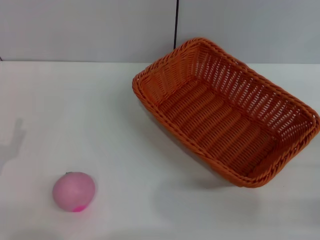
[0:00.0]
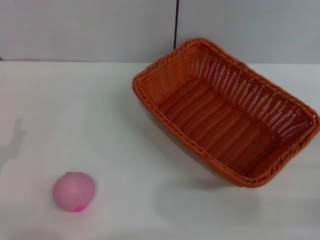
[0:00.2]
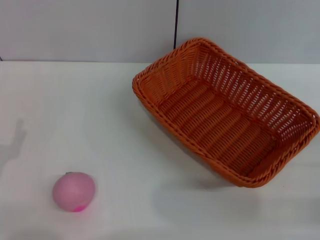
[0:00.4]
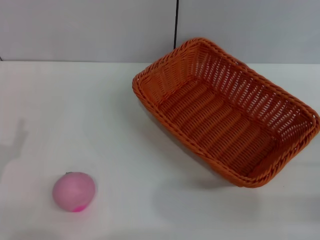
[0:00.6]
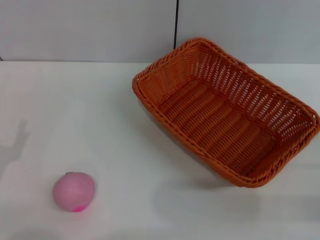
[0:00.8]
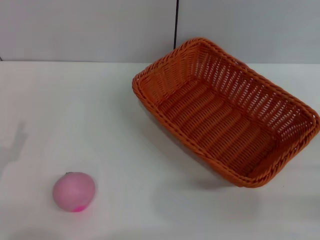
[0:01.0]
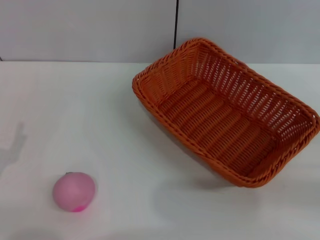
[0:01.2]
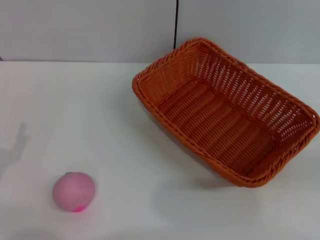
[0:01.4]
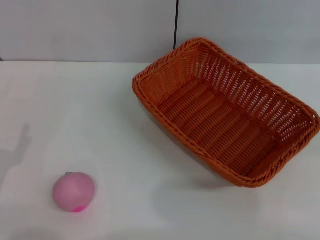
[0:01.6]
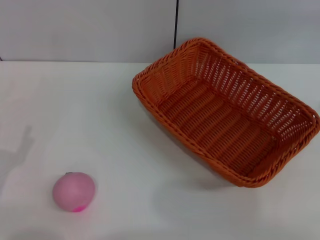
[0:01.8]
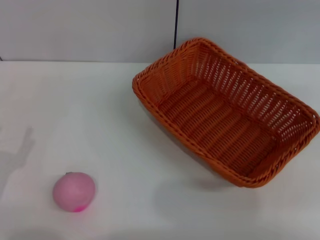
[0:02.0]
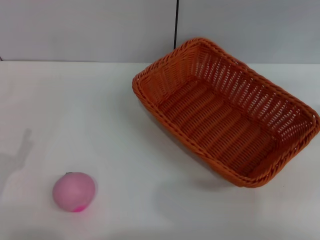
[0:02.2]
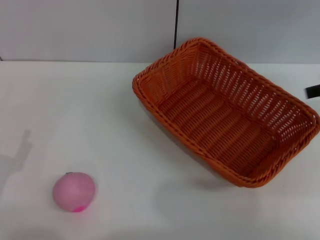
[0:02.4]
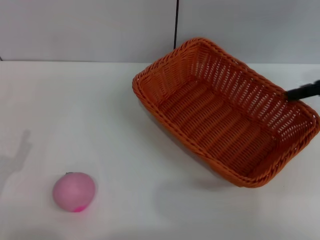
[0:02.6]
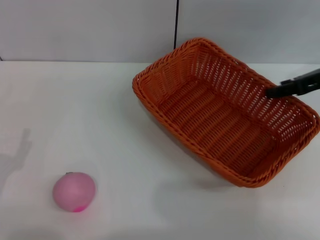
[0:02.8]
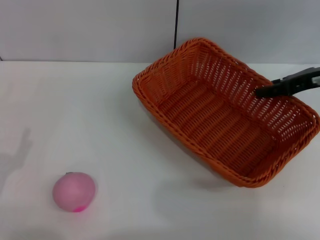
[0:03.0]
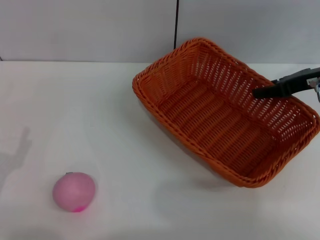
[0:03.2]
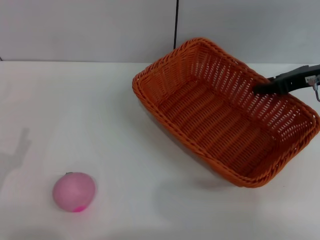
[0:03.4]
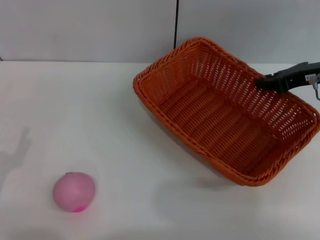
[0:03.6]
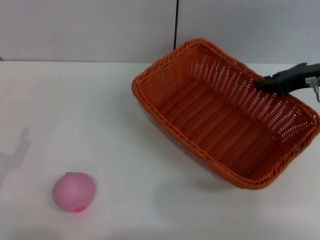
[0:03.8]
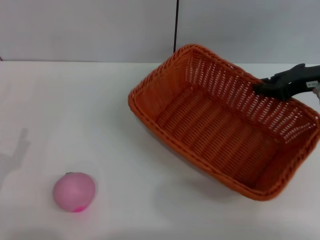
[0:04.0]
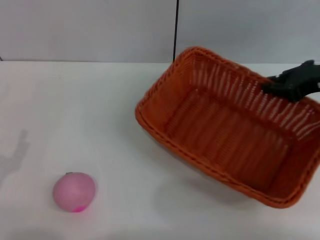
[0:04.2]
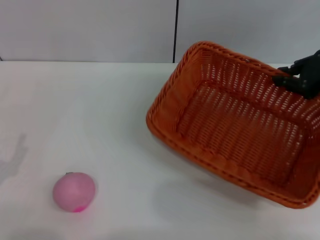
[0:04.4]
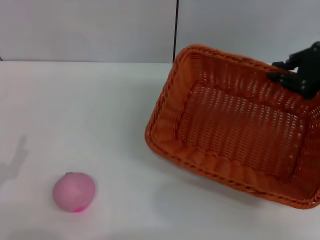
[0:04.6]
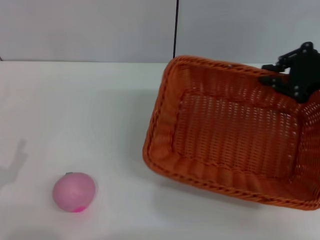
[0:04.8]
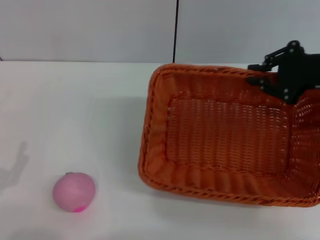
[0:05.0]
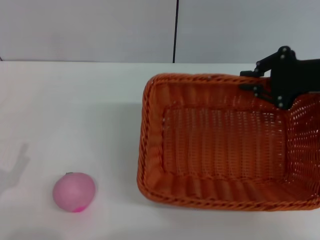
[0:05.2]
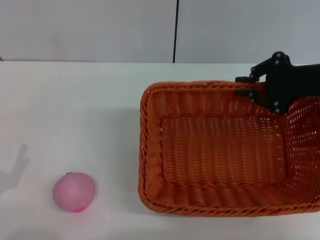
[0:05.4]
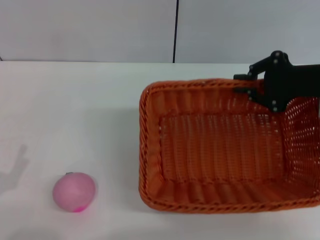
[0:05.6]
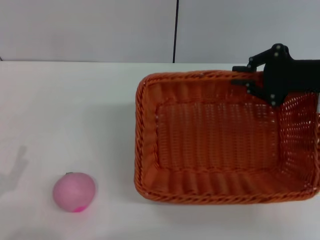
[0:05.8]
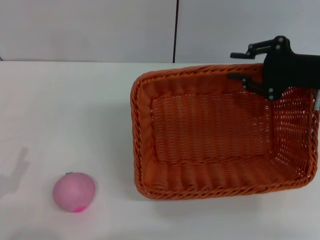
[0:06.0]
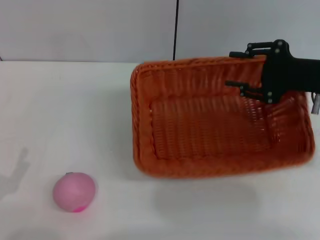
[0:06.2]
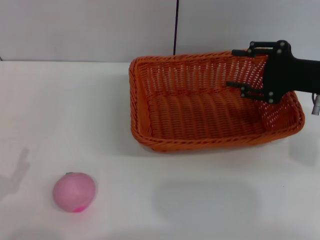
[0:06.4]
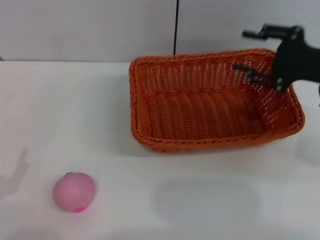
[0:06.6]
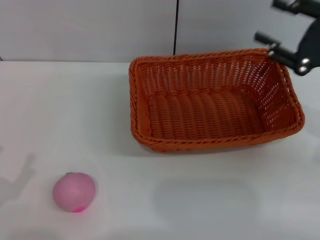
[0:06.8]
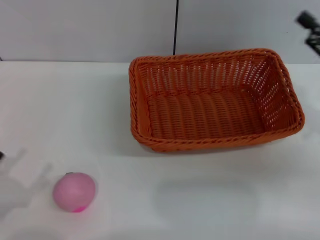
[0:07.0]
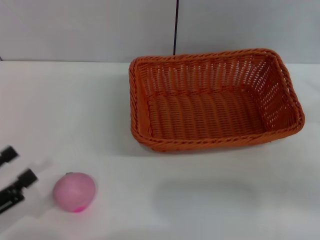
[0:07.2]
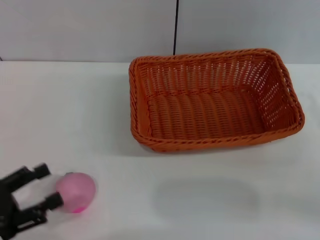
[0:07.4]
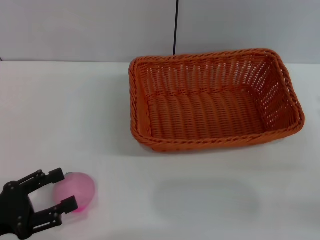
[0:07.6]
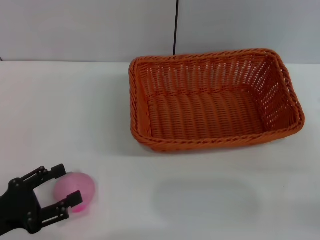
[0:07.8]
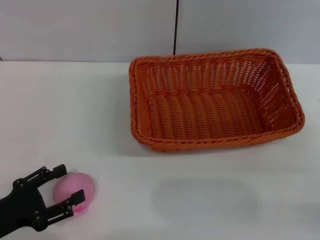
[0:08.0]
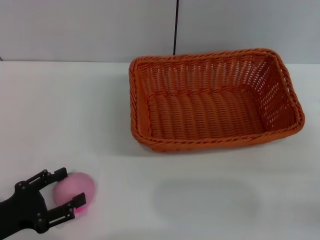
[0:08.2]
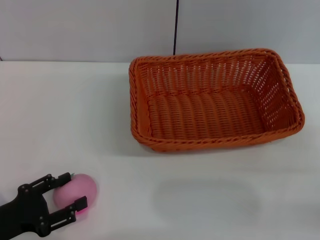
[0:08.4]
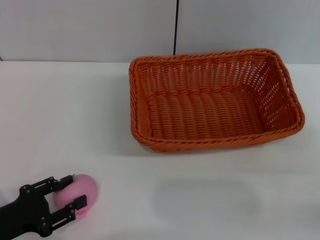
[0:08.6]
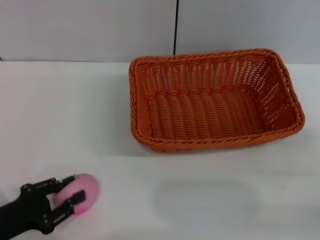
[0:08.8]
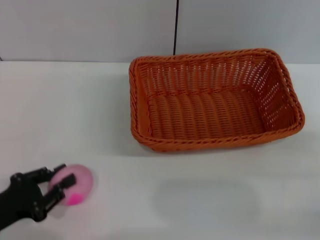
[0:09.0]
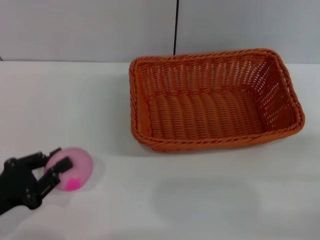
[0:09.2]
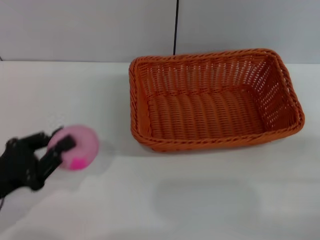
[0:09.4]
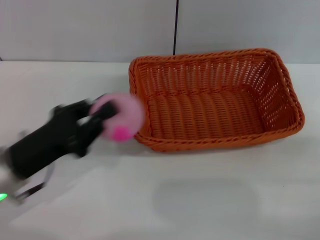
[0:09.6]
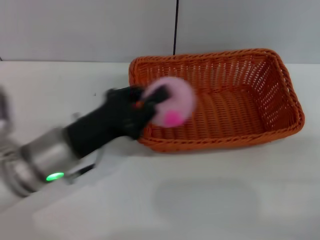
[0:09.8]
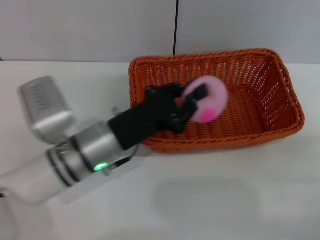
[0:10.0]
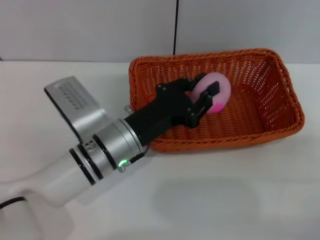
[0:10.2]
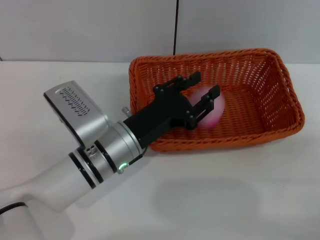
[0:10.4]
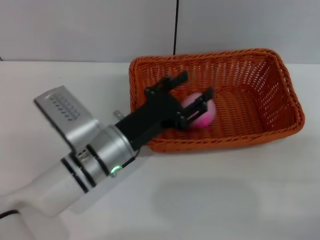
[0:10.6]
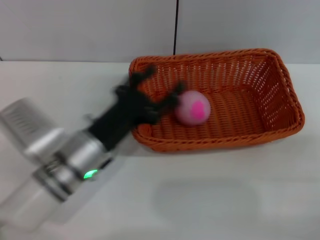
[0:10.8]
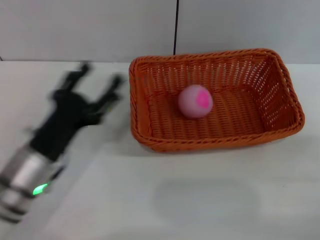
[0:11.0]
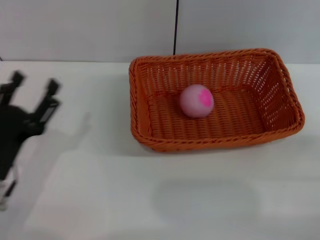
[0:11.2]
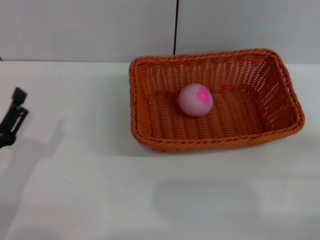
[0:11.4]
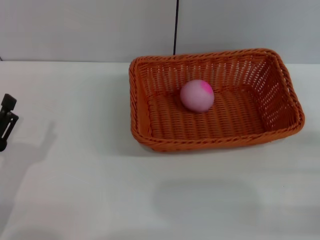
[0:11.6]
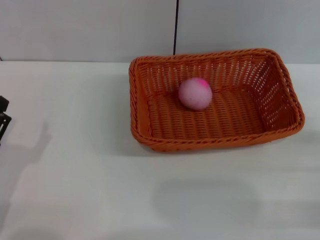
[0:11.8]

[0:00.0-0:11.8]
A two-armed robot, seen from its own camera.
Step, 0:00.0 to 0:04.2: Pick up the light basket with the right gripper.
Step, 0:04.4 to 0:06.4: Place the light basket in the center of view with the right gripper.
Step, 0:06.8 to 0:09.2: Pick up the peach with the left gripper.
Step, 0:09.4 to 0:10.4: Place the peach into the basket with the left gripper.
0:01.4 to 0:03.0: The right gripper travels forward and to the left by roughly 20 cm.
0:03.0 to 0:04.4: The right gripper closes its fingers.
0:06.0 to 0:07.4: The right gripper moves backward, to the right and downward, about 15 cm, and opens its fingers. Meanwhile the left gripper ends up roughly 5 cm from where it was.
0:07.4 to 0:08.8: The left gripper moves about 5 cm.
0:08.8 to 0:10.4: The left gripper travels to the right and forward by roughly 25 cm, and closes up.
0:10.4 to 0:11.8: The left gripper goes approximately 20 cm to the left and backward, and opens its fingers.

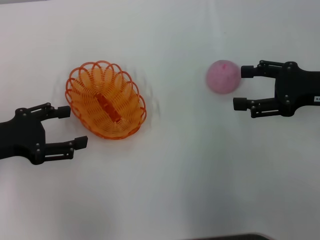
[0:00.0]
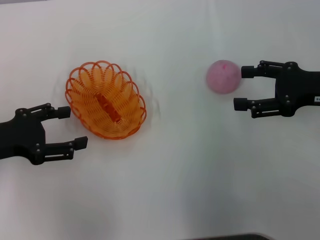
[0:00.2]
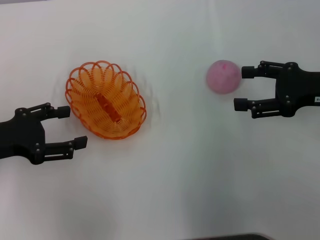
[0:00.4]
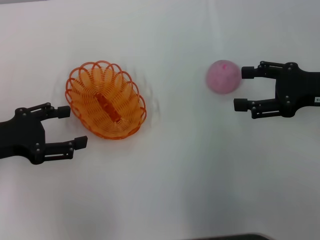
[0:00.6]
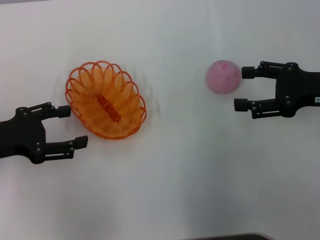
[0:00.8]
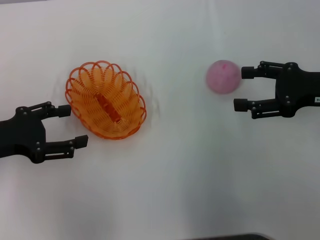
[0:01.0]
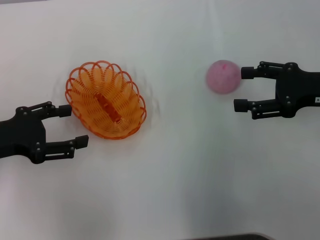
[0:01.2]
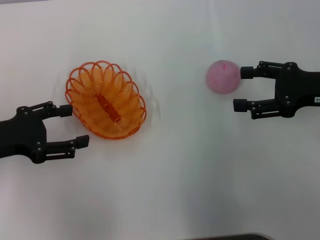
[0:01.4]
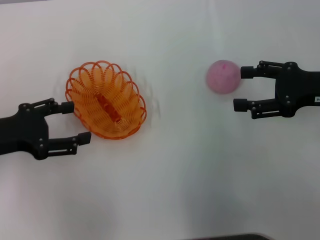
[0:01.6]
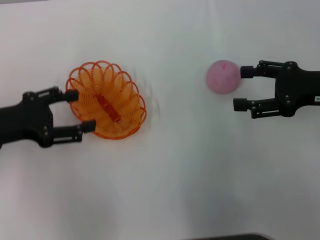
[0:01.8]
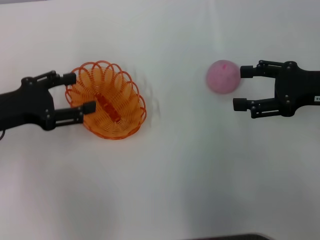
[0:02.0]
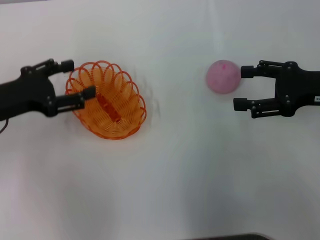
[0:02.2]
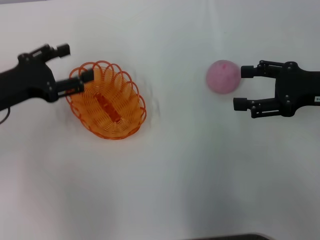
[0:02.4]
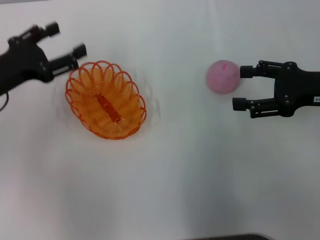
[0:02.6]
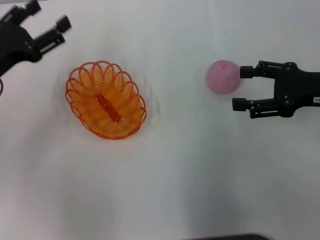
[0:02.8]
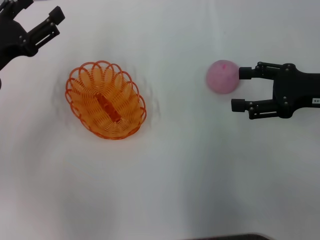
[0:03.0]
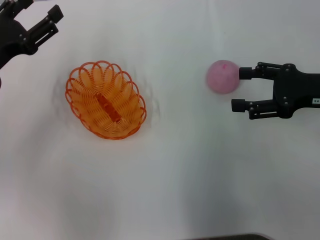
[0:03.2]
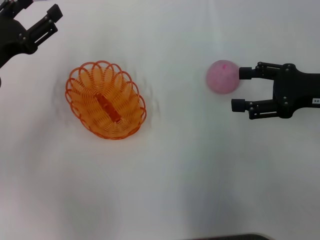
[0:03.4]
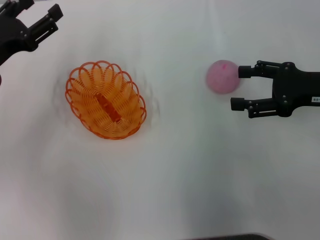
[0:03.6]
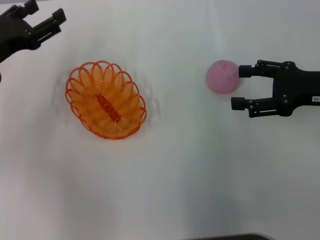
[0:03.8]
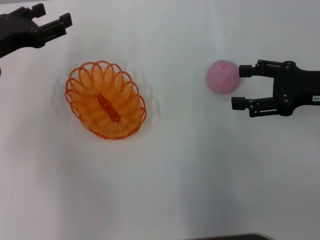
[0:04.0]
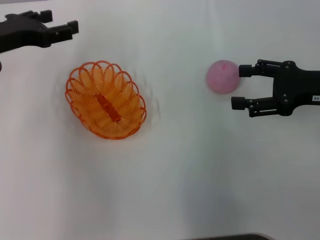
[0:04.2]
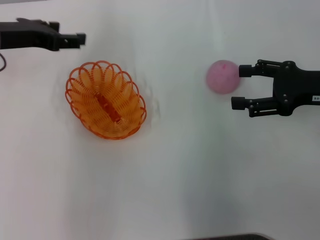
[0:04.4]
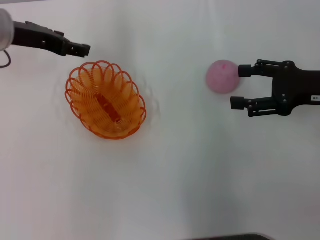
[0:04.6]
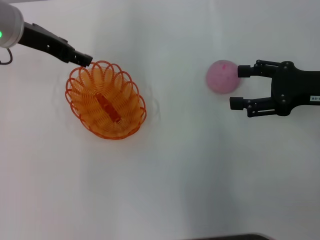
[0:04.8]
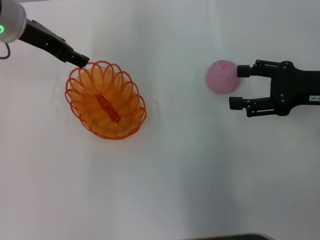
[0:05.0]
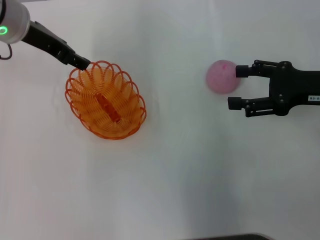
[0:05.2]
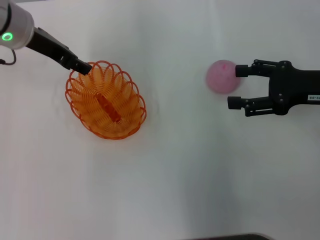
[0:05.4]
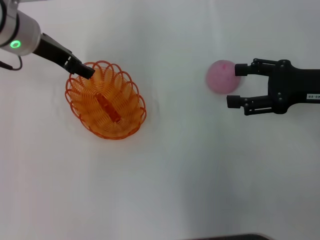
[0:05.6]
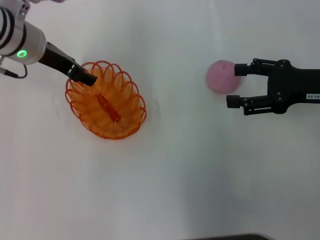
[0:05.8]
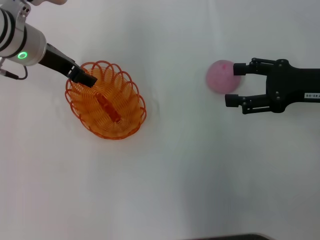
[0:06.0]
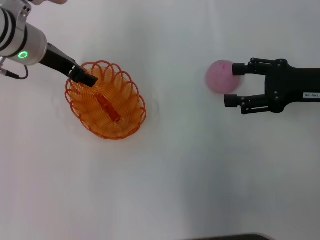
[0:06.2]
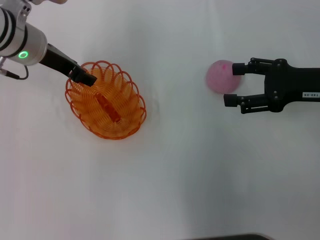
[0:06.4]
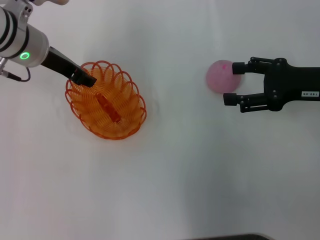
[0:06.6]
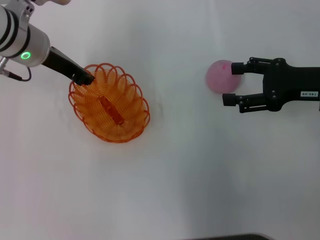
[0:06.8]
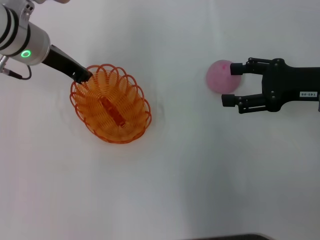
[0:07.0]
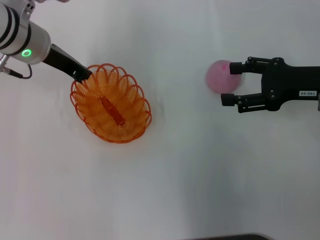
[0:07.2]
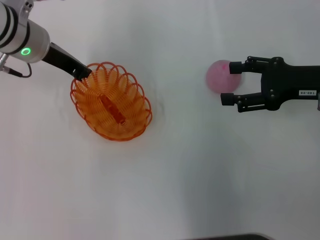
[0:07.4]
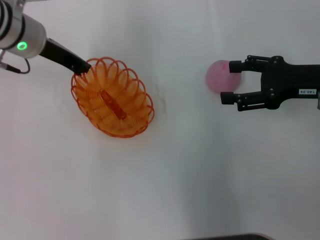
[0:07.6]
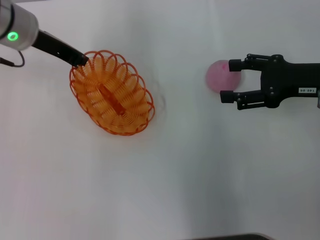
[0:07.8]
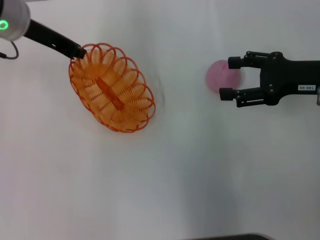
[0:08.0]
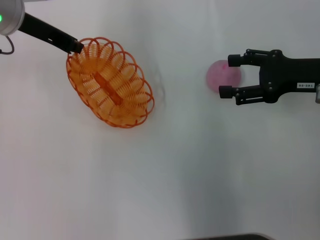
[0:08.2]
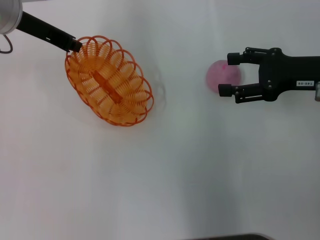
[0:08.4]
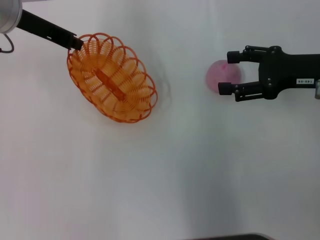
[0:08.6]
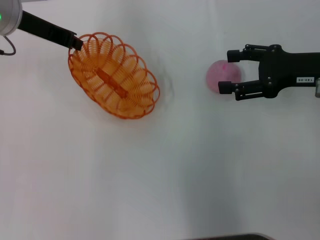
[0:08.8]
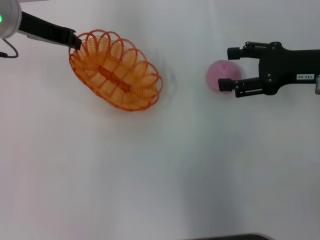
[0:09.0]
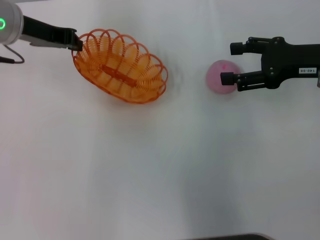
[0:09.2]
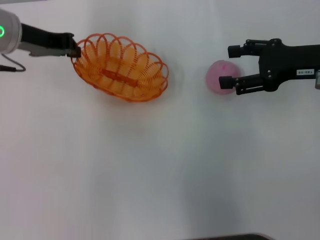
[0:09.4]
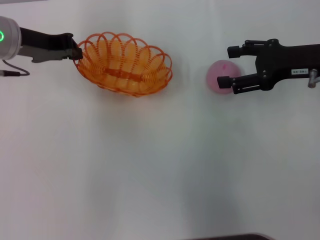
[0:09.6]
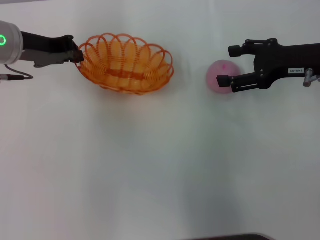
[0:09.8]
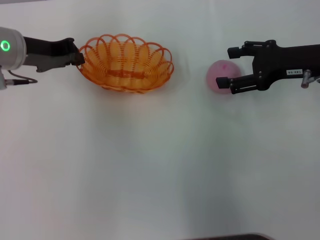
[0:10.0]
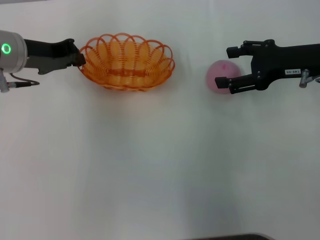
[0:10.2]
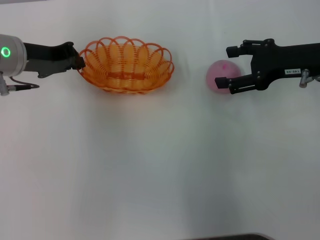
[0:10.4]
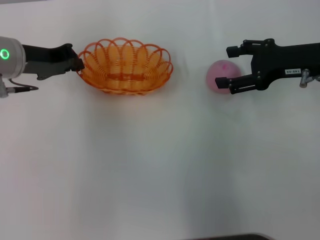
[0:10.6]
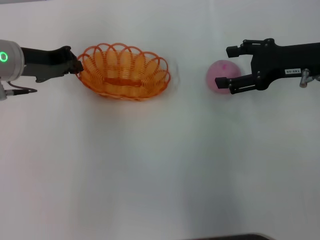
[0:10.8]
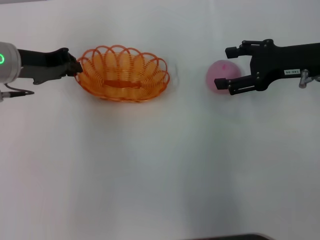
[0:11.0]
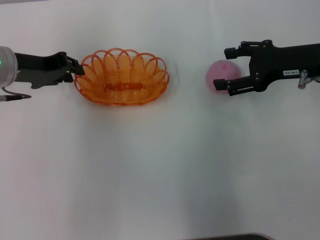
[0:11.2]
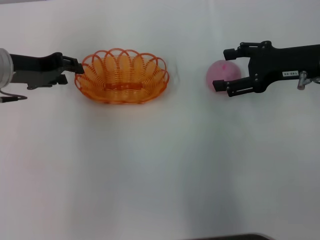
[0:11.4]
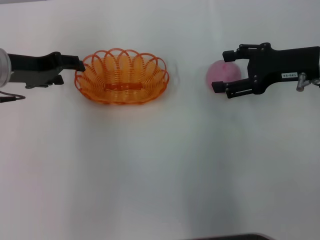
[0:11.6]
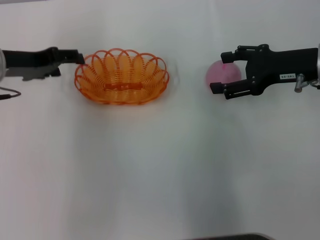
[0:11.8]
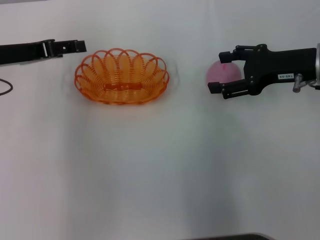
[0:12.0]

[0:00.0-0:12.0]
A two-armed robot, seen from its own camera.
Step, 0:00.0 to 0:07.8: Pick up the basket with the left gripper.
Step, 0:08.0 to 0:11.8: Place the basket in the center of view with the left gripper.
0:00.0 to 0:01.6: Both grippers stay about where they are.
0:01.6 to 0:03.0: The left gripper ends up roughly 5 cm from where it was.
0:03.0 to 0:04.4: The left gripper heads forward and upward, covering about 10 cm.
0:04.4 to 0:06.0: The left gripper is displaced to the right by about 5 cm.
0:06.0 to 0:07.6: The left gripper closes its fingers.
0:07.6 to 0:09.0: The grippers move only a little.
0:09.0 to 0:10.4: The left gripper travels downward by approximately 5 cm.
0:10.4 to 0:12.0: The left gripper opens.
